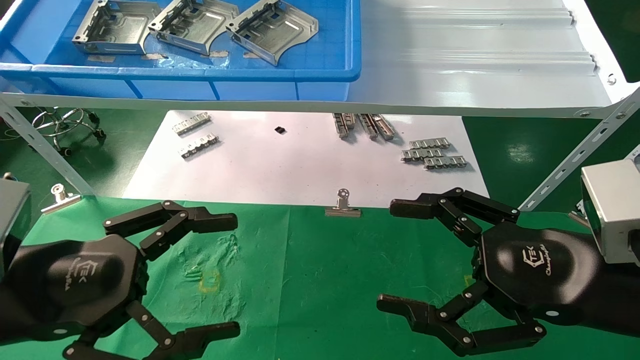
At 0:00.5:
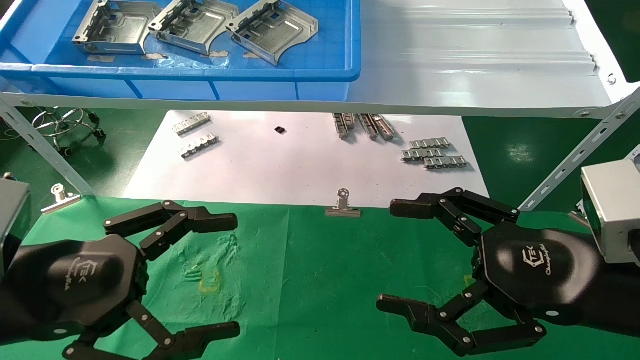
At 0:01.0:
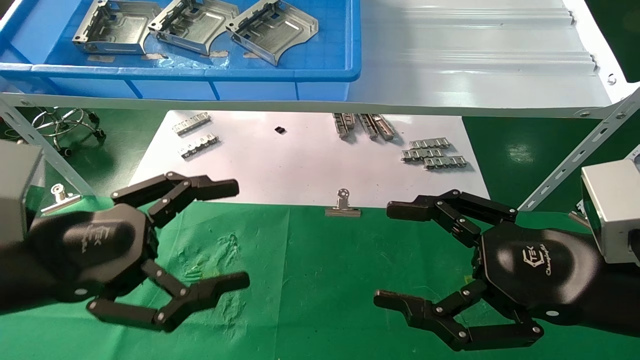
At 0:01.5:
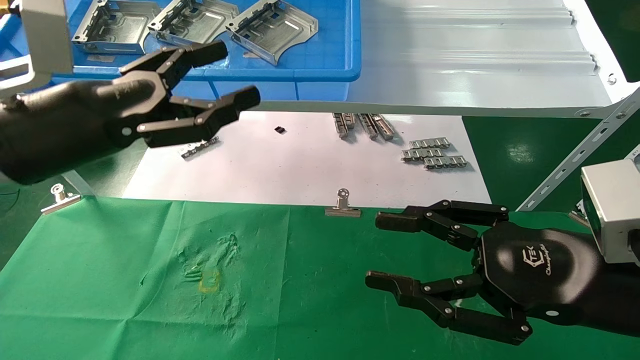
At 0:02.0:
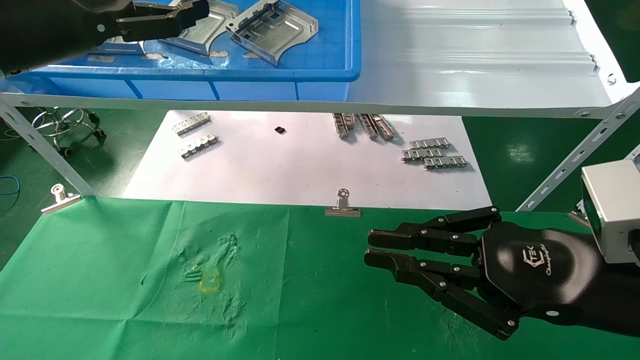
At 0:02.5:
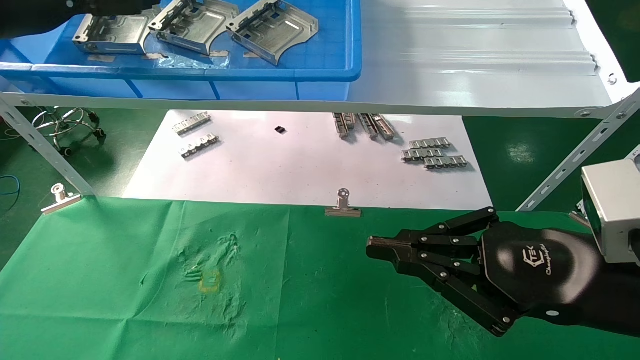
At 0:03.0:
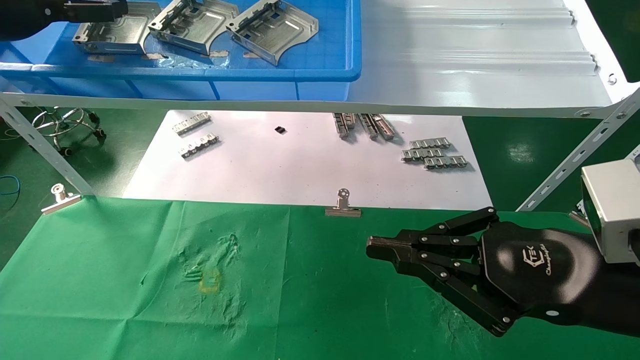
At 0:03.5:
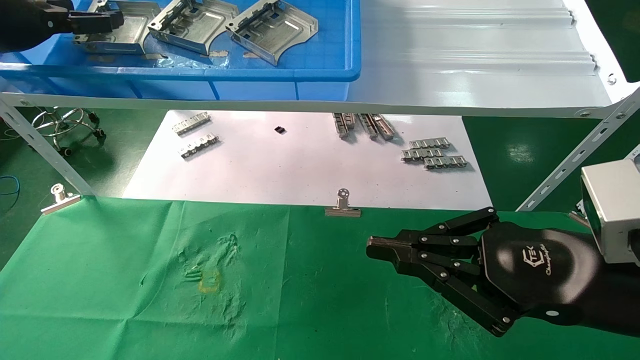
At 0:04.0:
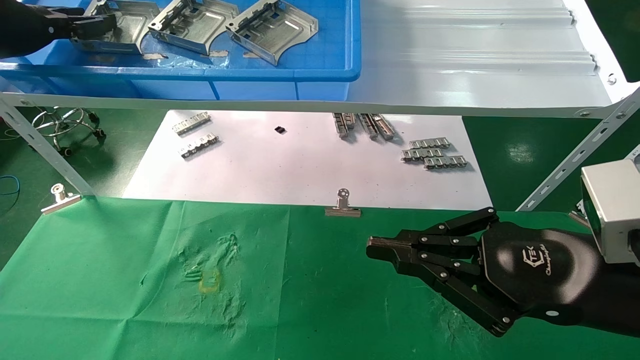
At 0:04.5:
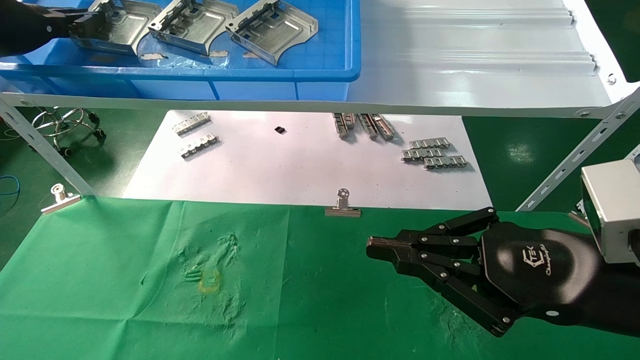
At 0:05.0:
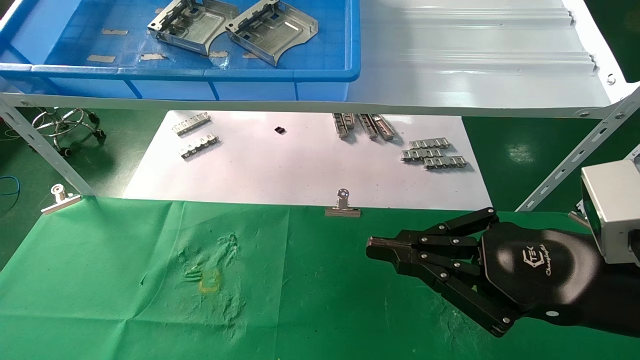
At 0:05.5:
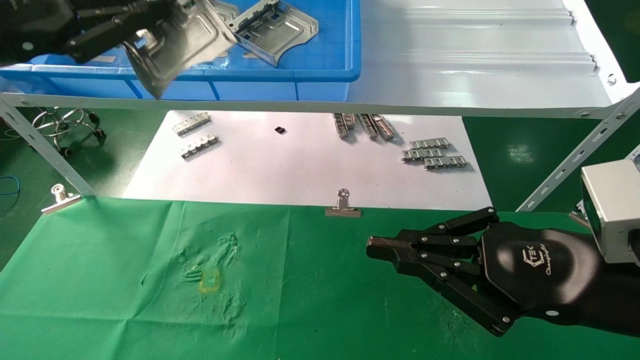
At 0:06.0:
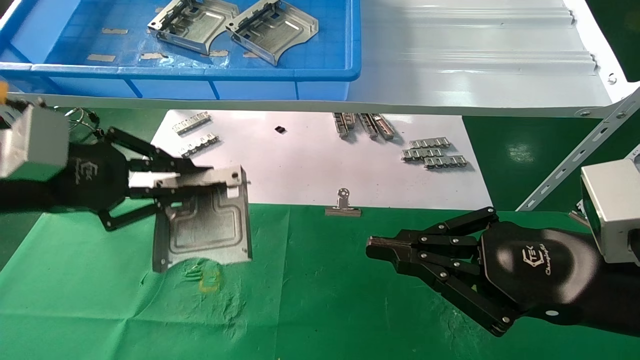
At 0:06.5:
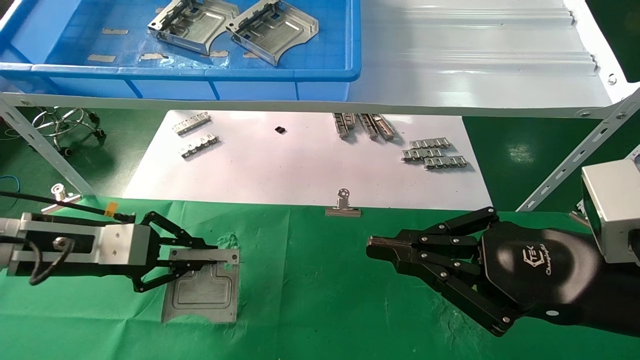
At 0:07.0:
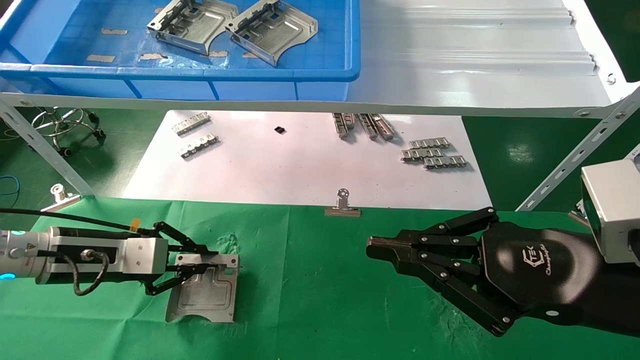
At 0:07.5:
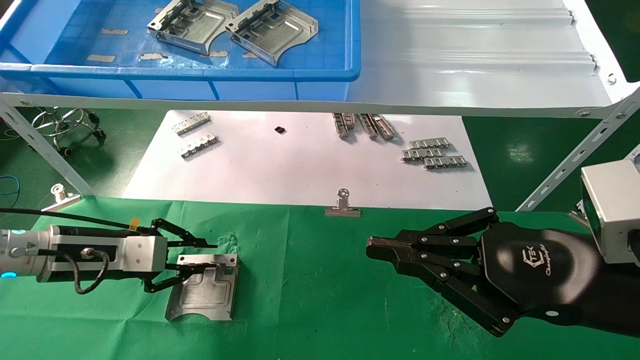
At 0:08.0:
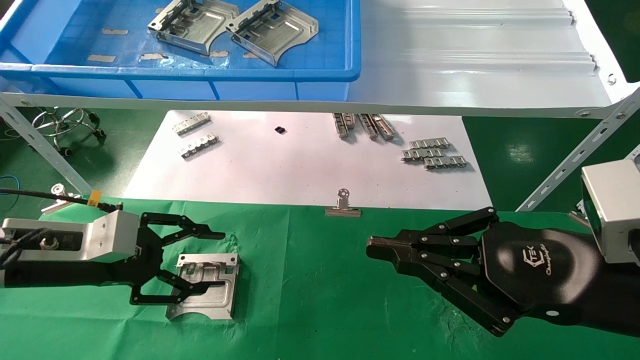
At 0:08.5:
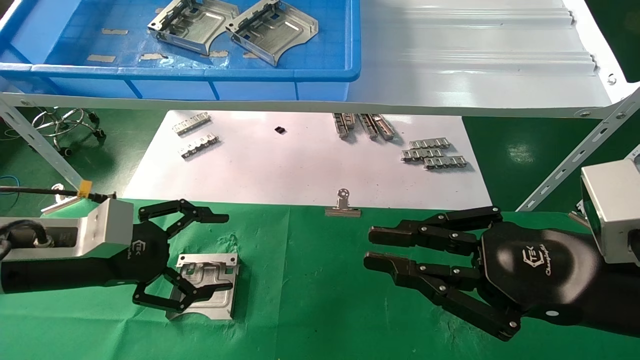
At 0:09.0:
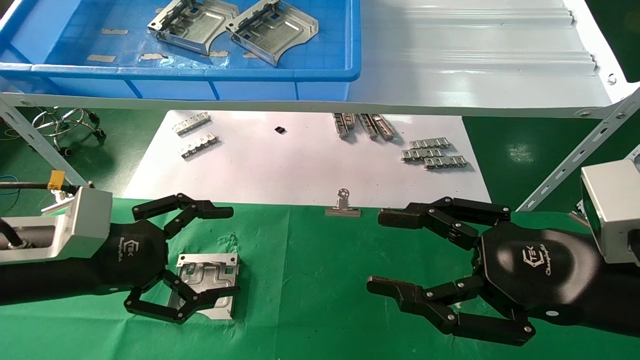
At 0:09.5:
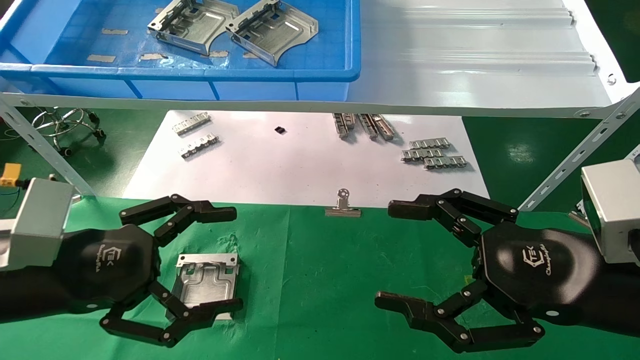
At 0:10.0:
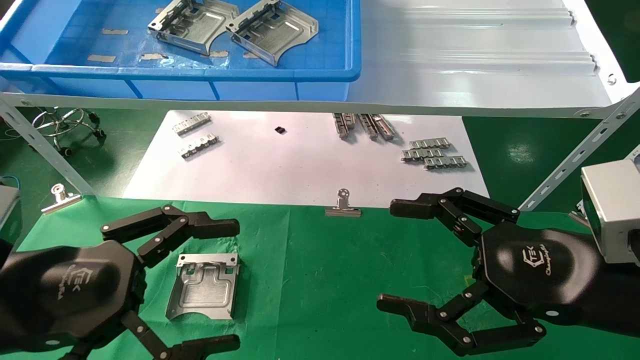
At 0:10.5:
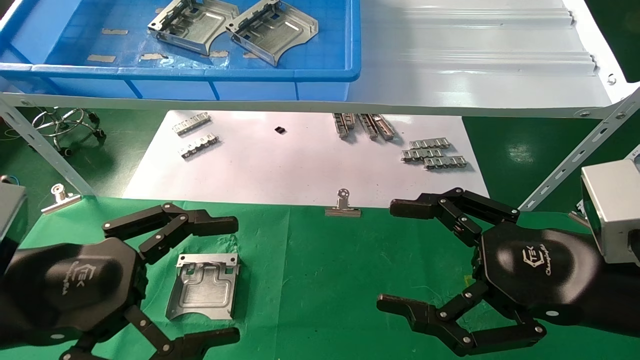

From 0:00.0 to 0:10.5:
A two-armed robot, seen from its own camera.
Task of the whole recording: use the mechanical arm to pick up the parts and place them on the table.
Step, from 0:01.5 to 0:04.0: Pick up the hard drive bracket from the feeding area.
Step, from 0:04.5 to 0:07.5: Place the hard drive bracket into the box.
From 0:00.0 to 0:02.0: The left gripper moves upward and forward, some 25 cm. Meanwhile the right gripper closes its fingers.
From 0:02.0 to 0:04.0: The left gripper heads to the left and forward, covering roughly 10 cm, and closes.
From 0:04.0 to 0:06.5: The left gripper heads downward, covering about 25 cm, and closes its fingers.
From 0:06.5 to 0:08.5: The left gripper opens its fingers.
From 0:08.5 to 0:10.5: The right gripper opens. The left gripper moves backward, about 10 cm.

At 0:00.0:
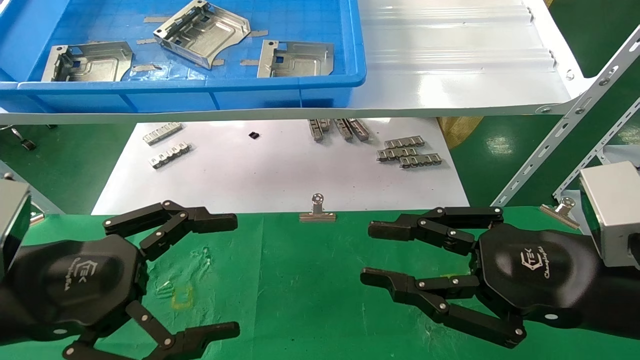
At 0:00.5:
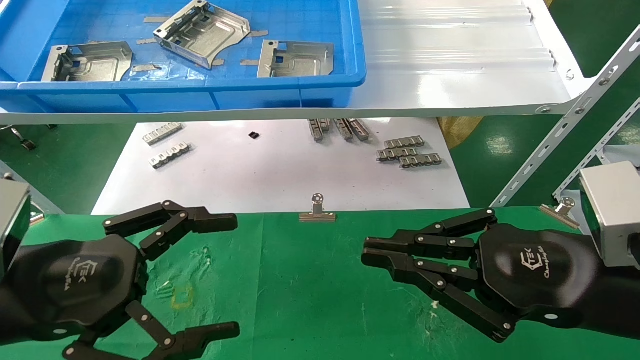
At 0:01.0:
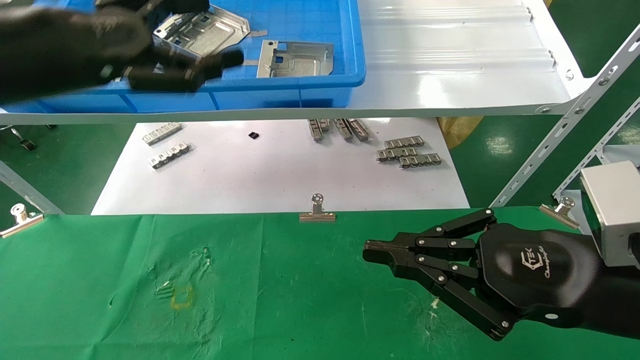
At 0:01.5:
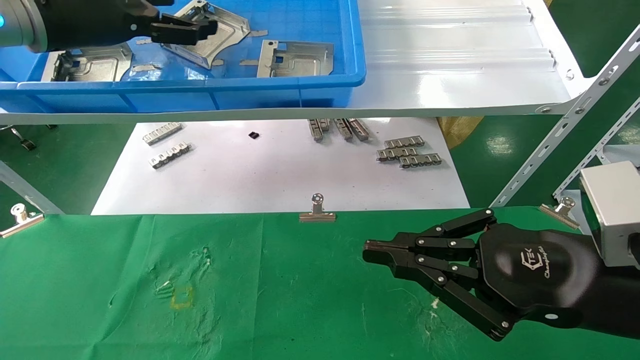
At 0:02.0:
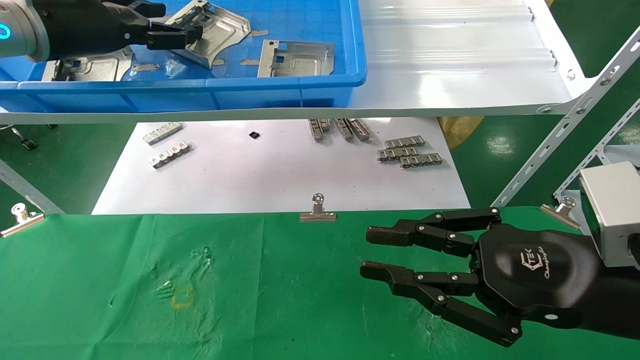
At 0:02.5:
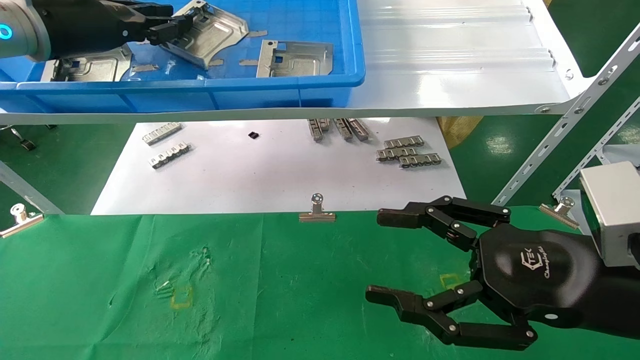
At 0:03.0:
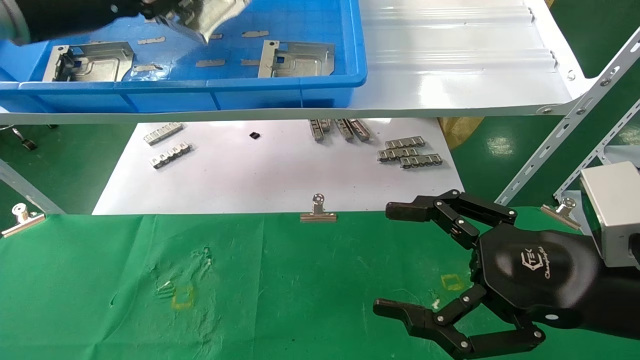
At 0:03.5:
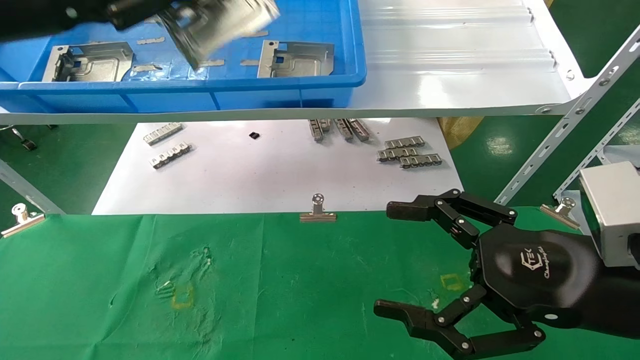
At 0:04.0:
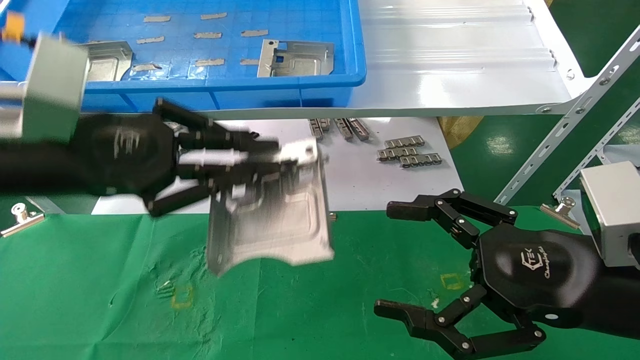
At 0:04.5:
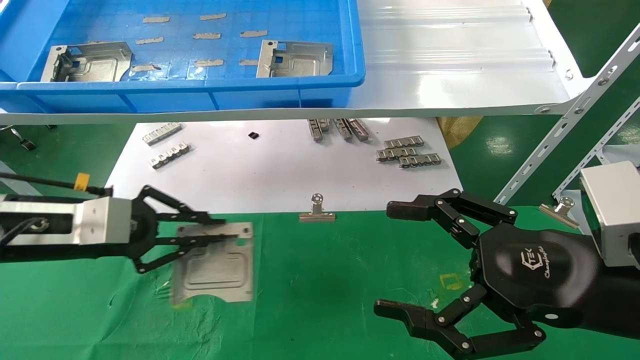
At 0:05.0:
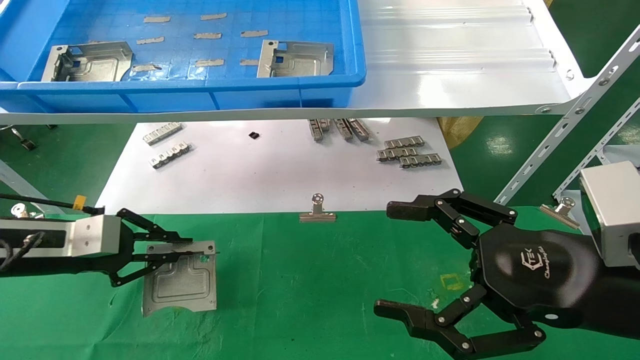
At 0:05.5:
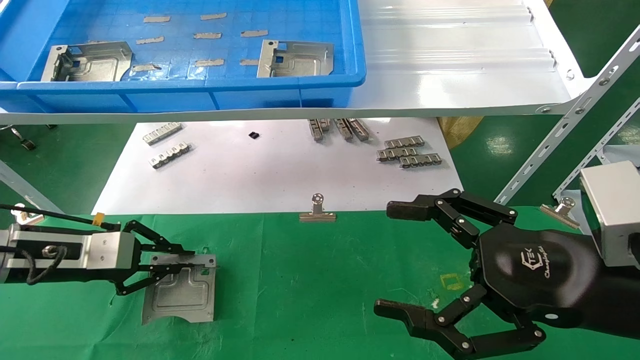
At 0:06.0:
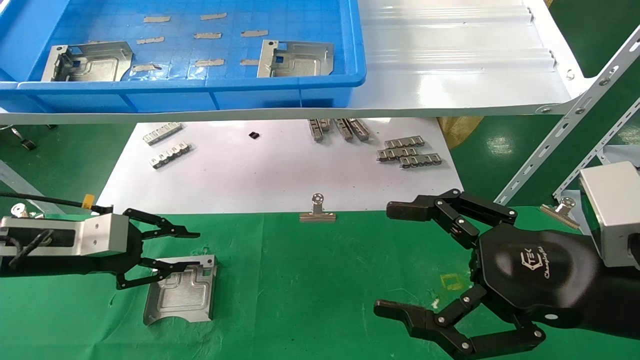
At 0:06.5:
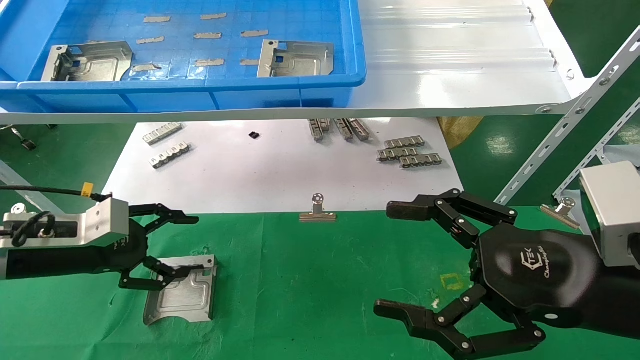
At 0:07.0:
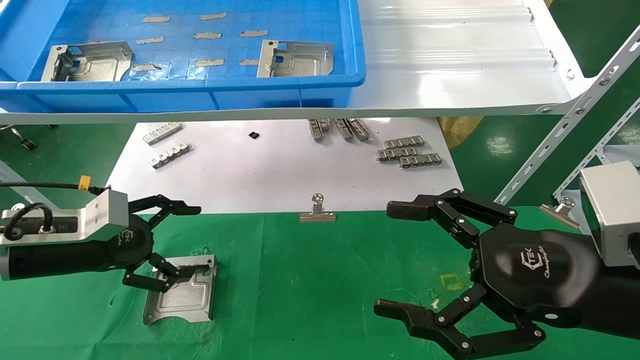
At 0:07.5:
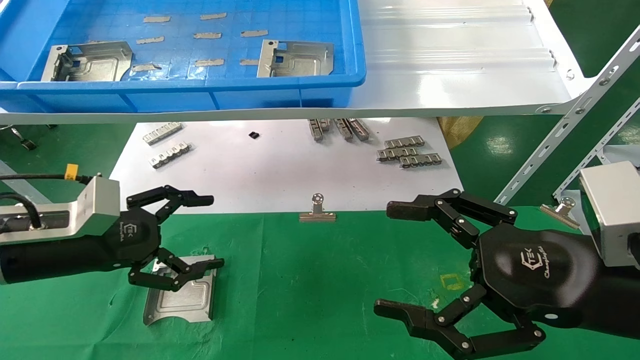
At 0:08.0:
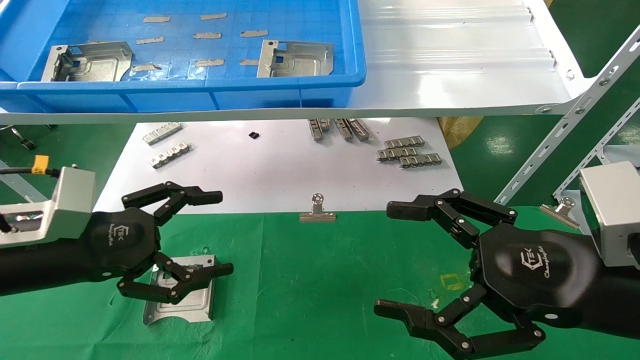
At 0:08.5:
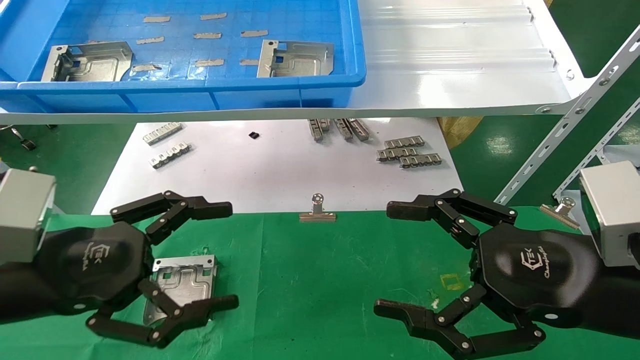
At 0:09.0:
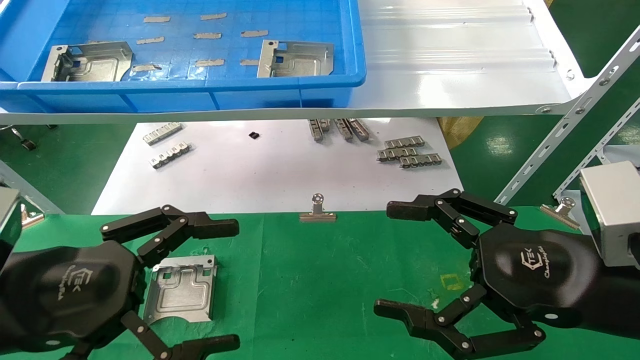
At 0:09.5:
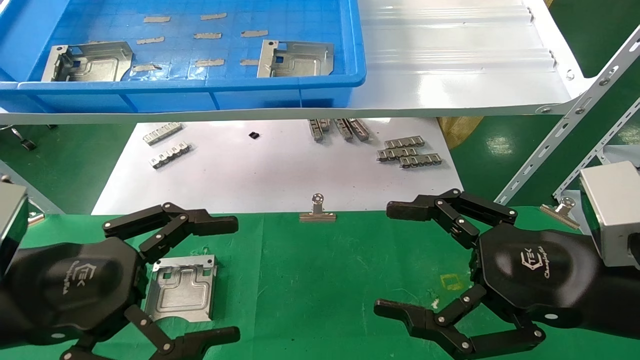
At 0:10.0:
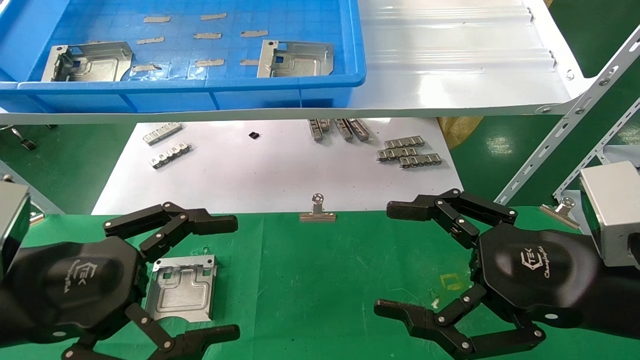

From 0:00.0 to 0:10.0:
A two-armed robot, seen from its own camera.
Task of the whole recording: use the mechanical arm to pick up the parts and place them on the table.
Step, from 0:01.5 to 0:02.5: Pick up the hard drive bracket from the feeding area.
Step, from 0:03.0 to 0:05.5: Place the hard drive bracket into the box.
From 0:00.0 to 0:02.0: The left gripper heads forward and upward, covering some 30 cm.
From 0:02.0 to 0:04.0: The left gripper moves backward and downward, some 20 cm, and closes its fingers, while the right gripper opens up.
From 0:04.0 to 0:06.0: The left gripper shifts about 20 cm downward, to the left and forward.
From 0:06.0 to 0:08.0: The left gripper moves backward and to the right, approximately 10 cm, and opens up.
From 0:08.0 to 0:10.0: The left gripper shifts some 10 cm backward.
